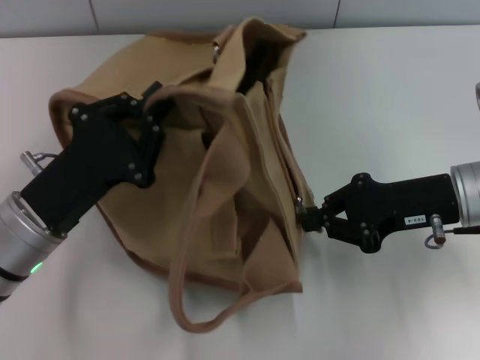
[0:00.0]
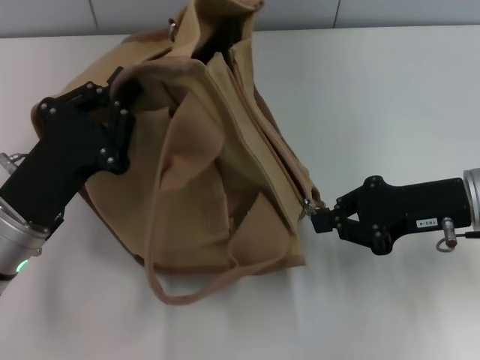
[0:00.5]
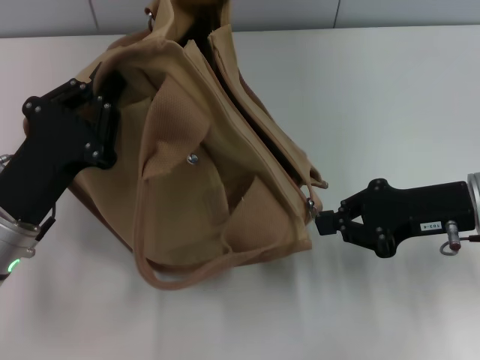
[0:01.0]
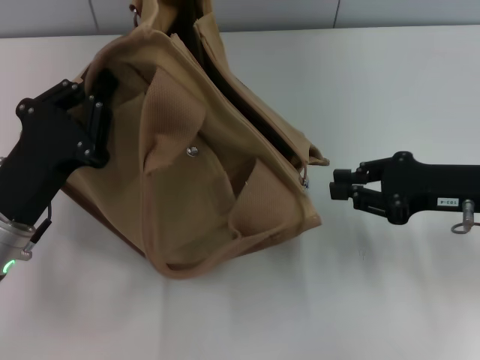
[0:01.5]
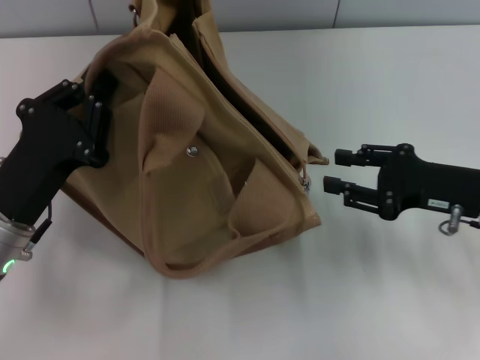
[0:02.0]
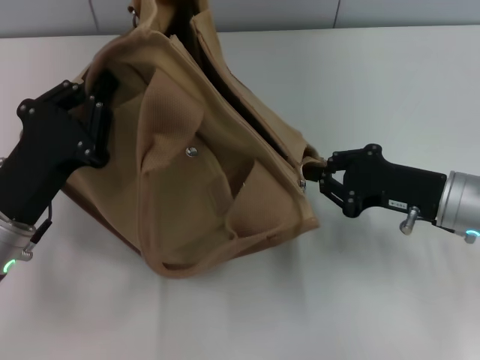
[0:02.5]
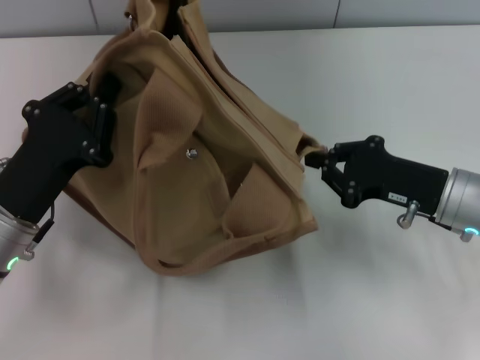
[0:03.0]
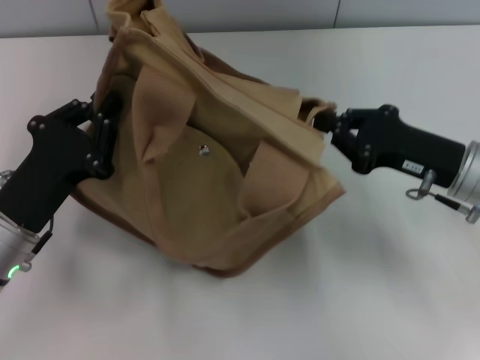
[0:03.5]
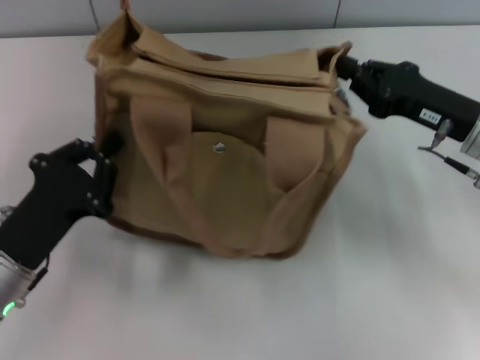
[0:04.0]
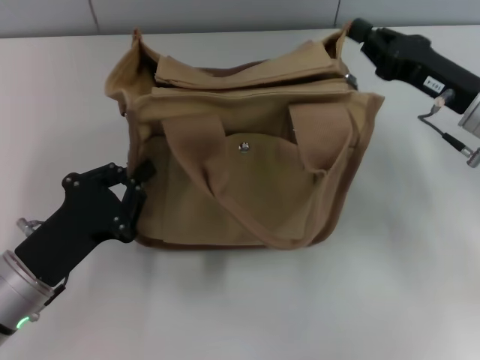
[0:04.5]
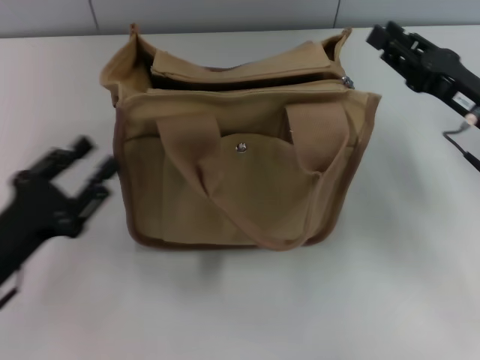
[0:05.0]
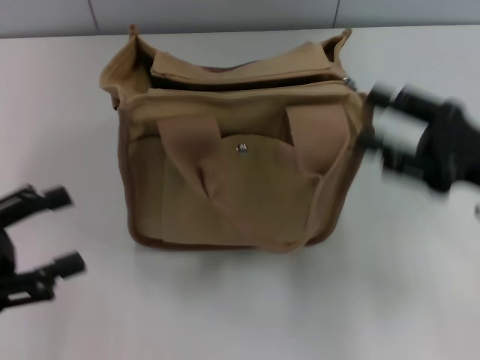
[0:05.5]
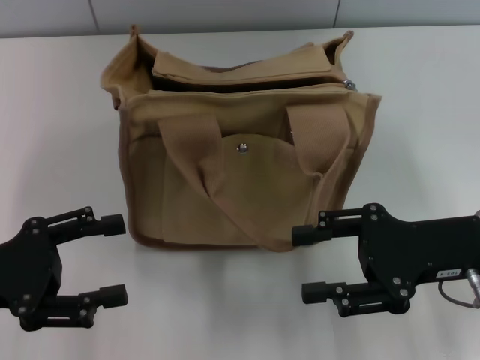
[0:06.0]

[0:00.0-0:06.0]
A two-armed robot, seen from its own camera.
Step, 0:02.0 to 0:05.0: Grab the bag with your left hand.
0:00.0 to 0:02.0: The right gripper opens up.
0:02.0 to 0:04.0: The right gripper ends up some 5 cm from where it was, and closes up.
0:04.0 to 0:06.0: The right gripper goes approximately 10 cm backward, and opens up, while the left gripper goes roughly 10 cm to the left and upward, and opens.
